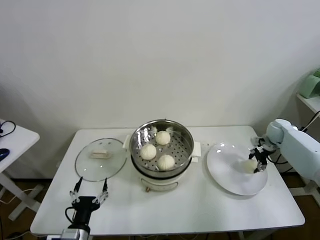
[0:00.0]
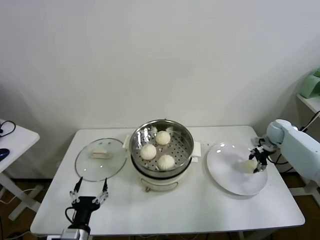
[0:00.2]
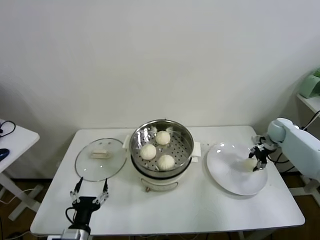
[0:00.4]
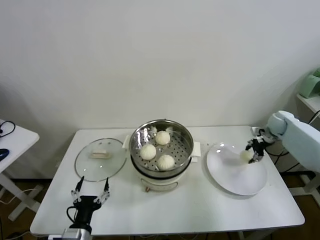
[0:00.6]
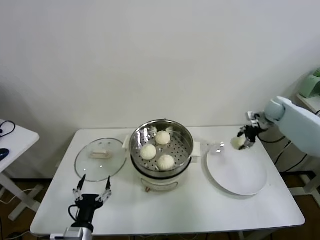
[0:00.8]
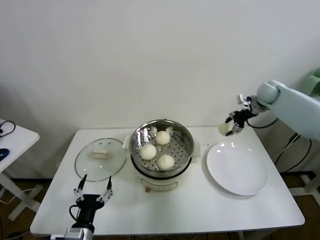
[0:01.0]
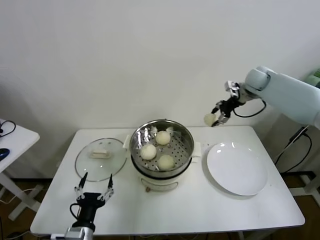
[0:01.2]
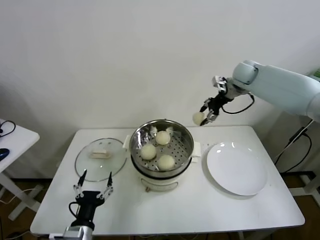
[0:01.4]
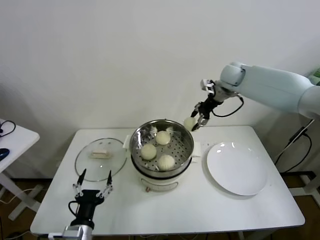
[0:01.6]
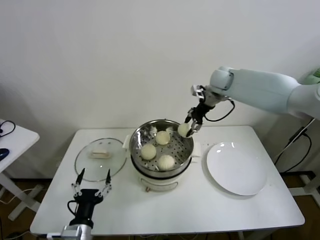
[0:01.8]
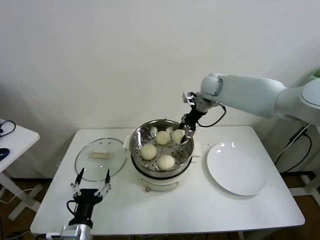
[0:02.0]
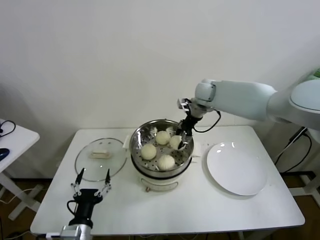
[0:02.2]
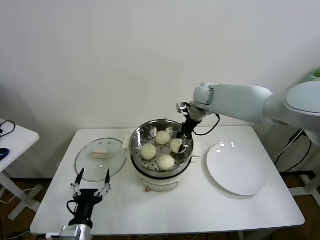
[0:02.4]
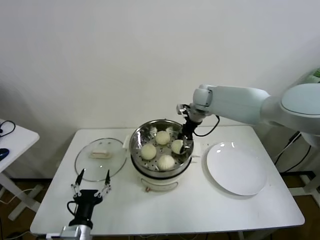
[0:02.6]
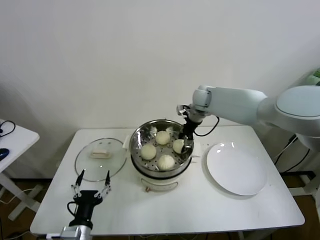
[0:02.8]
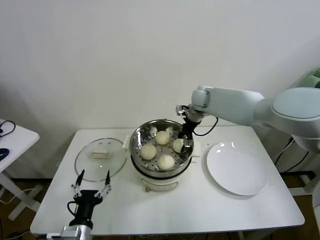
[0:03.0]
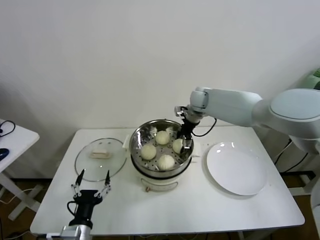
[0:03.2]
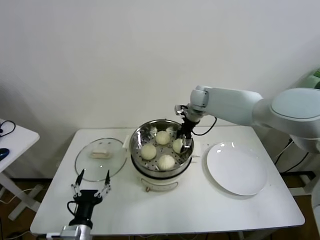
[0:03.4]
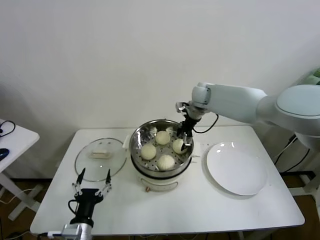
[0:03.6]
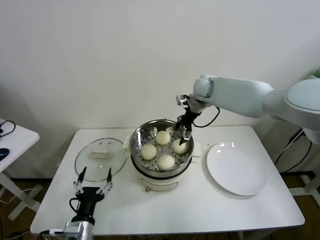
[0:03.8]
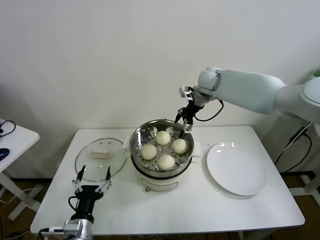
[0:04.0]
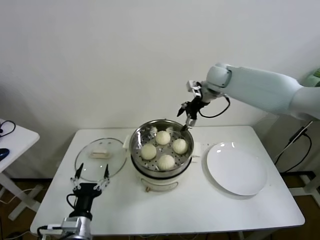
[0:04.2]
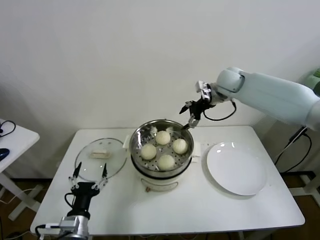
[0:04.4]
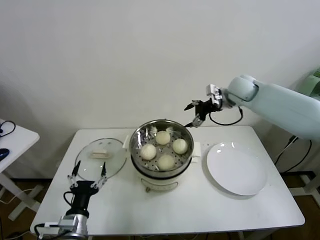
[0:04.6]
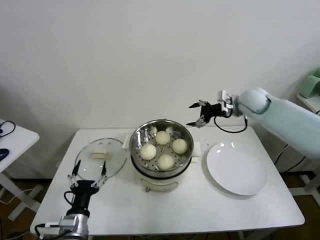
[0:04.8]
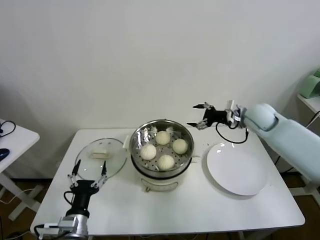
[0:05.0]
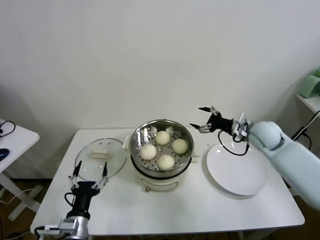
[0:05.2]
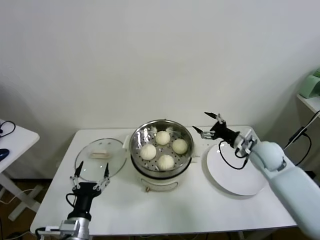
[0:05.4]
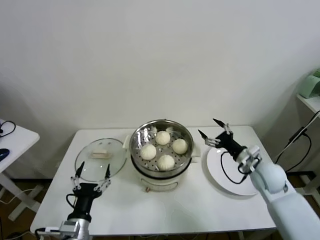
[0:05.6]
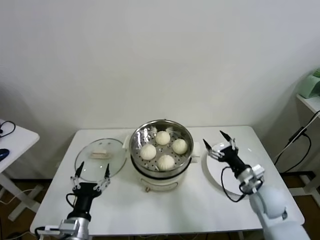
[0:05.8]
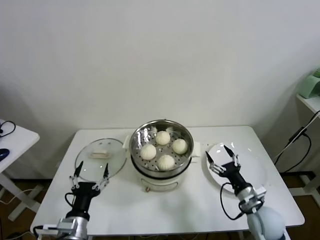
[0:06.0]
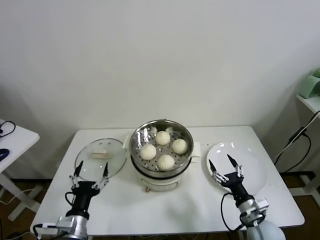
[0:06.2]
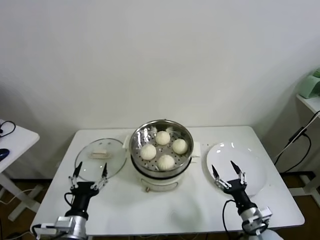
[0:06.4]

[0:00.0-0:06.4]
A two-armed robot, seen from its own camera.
Task of the whole recording: take steamed baozi put them in steamer.
Step, 0:00.4 to 0:03.6: Place the baozi on the steamer with right gripper.
0:00.0 to 0:01.6: The right gripper is displaced upward and to the left by about 30 cm, and closes.
0:01.6 to 0:03.2: The right gripper is displaced to the left and downward by about 15 cm, and opens its fingers.
0:03.2 to 0:04.8: The right gripper is displaced to the right and backward by about 15 cm.
0:04.8 to 0:06.4: The right gripper shifts approximately 40 cm backward and downward.
